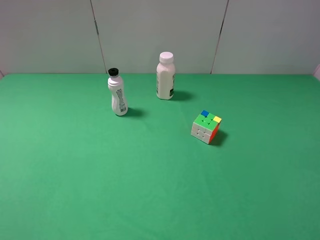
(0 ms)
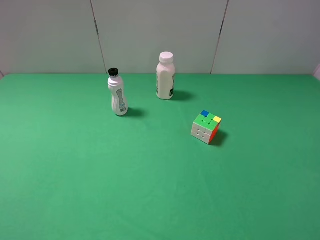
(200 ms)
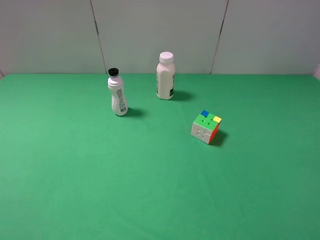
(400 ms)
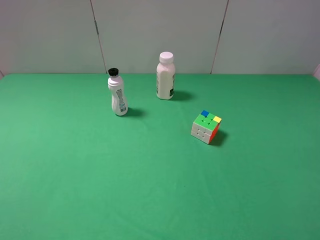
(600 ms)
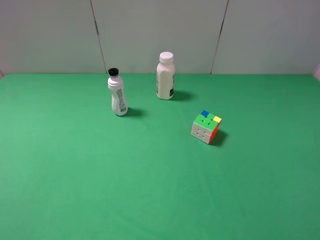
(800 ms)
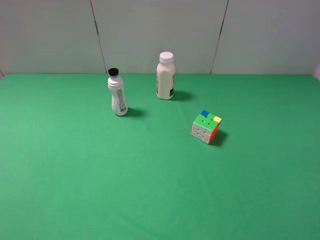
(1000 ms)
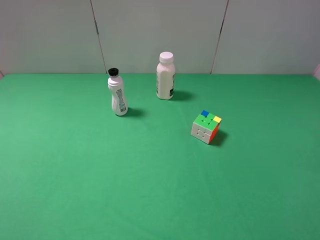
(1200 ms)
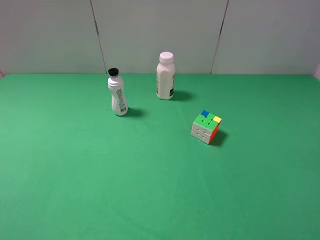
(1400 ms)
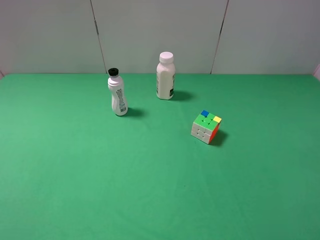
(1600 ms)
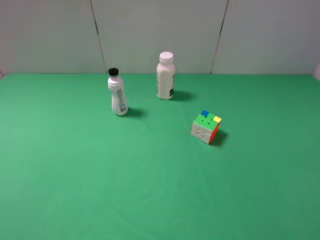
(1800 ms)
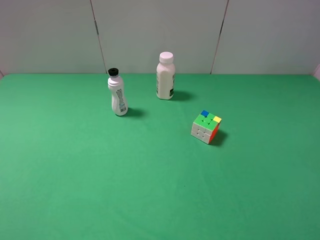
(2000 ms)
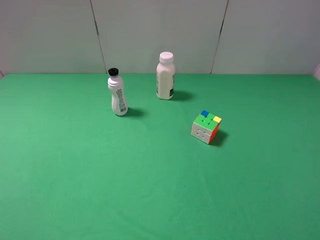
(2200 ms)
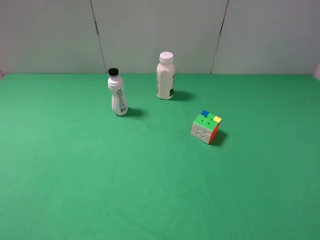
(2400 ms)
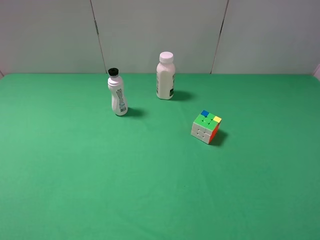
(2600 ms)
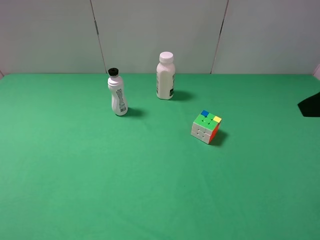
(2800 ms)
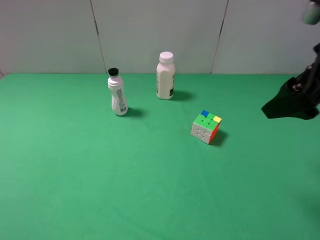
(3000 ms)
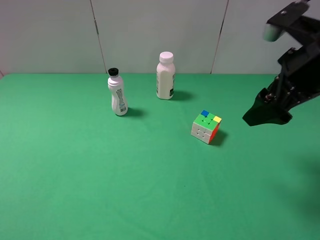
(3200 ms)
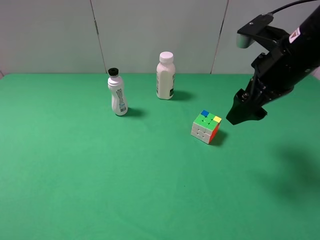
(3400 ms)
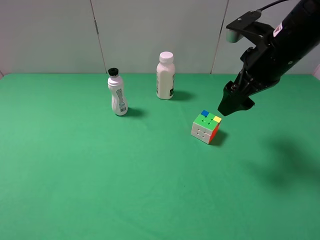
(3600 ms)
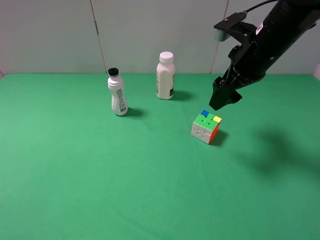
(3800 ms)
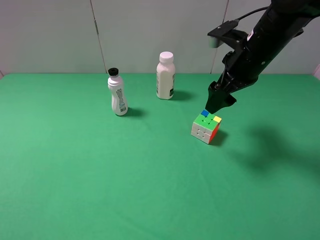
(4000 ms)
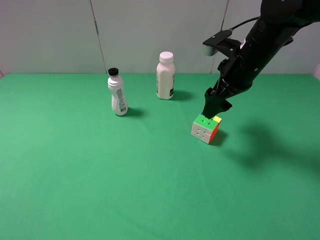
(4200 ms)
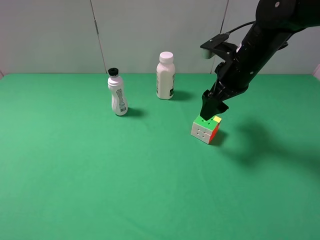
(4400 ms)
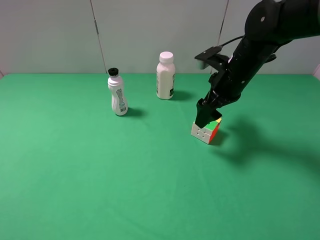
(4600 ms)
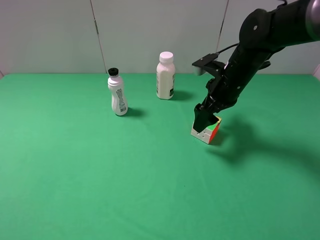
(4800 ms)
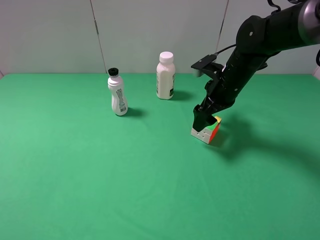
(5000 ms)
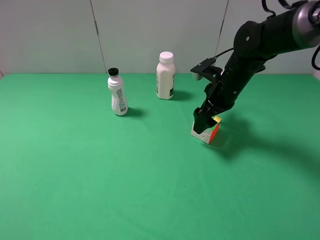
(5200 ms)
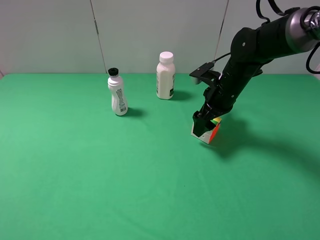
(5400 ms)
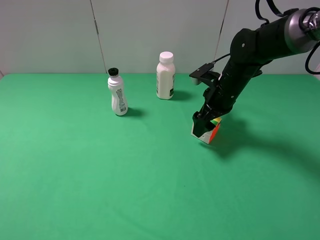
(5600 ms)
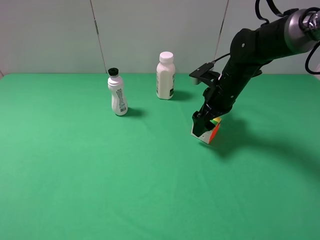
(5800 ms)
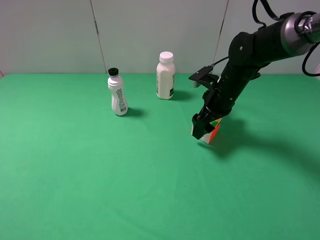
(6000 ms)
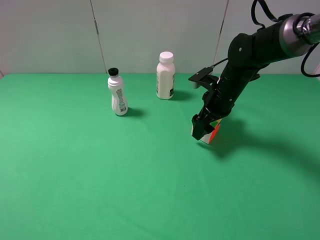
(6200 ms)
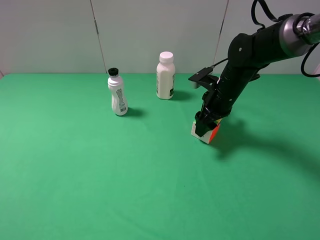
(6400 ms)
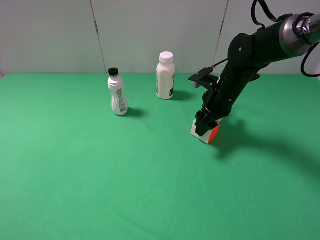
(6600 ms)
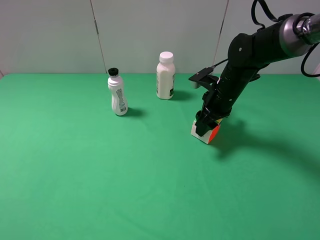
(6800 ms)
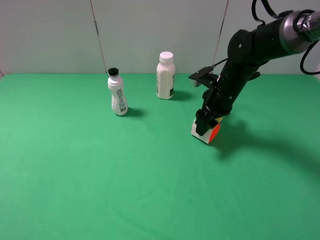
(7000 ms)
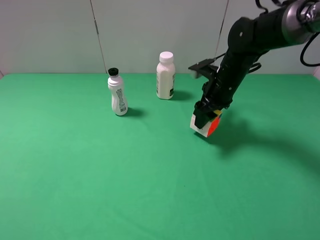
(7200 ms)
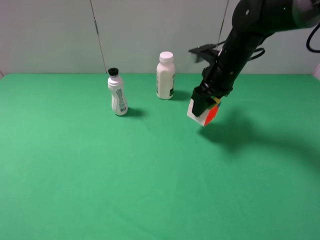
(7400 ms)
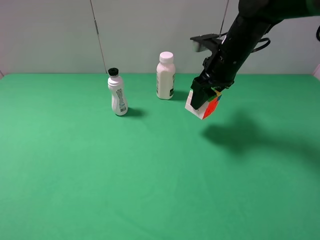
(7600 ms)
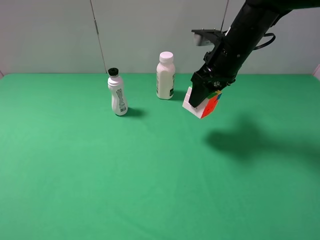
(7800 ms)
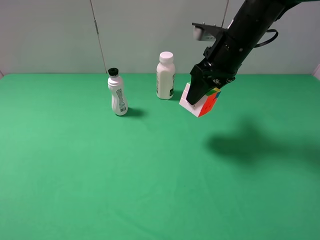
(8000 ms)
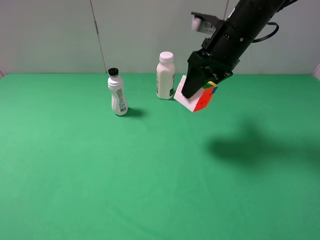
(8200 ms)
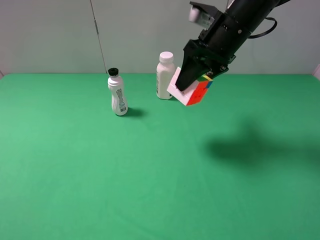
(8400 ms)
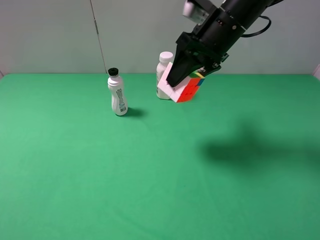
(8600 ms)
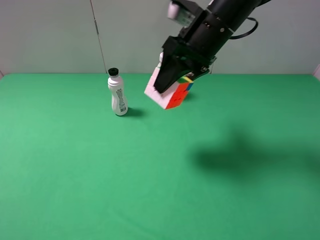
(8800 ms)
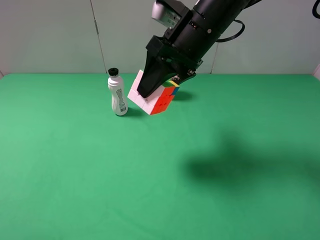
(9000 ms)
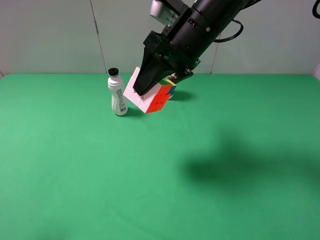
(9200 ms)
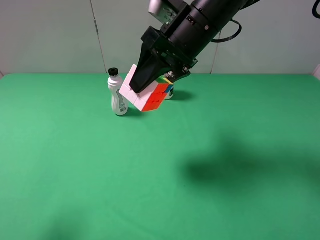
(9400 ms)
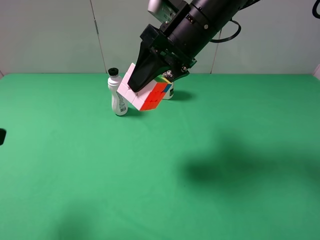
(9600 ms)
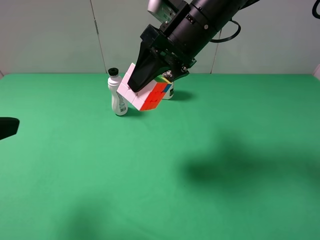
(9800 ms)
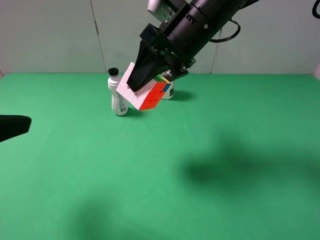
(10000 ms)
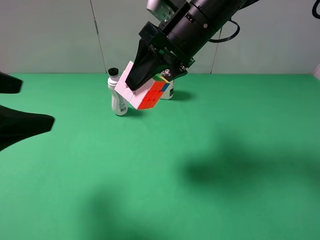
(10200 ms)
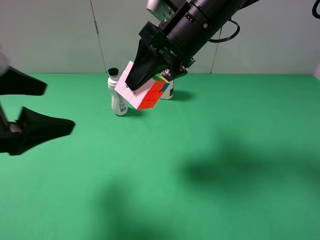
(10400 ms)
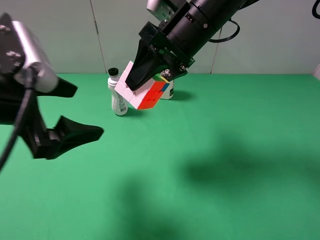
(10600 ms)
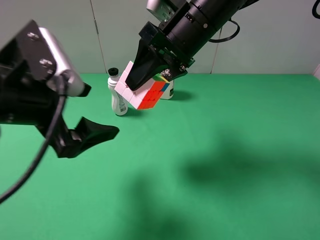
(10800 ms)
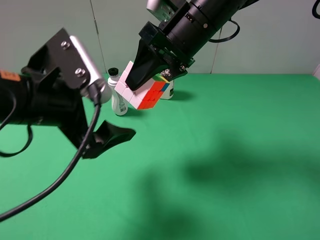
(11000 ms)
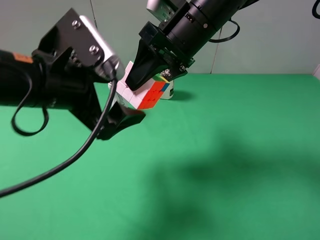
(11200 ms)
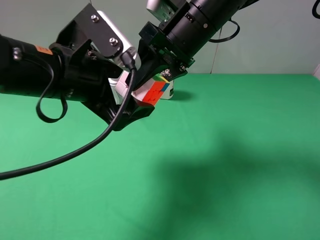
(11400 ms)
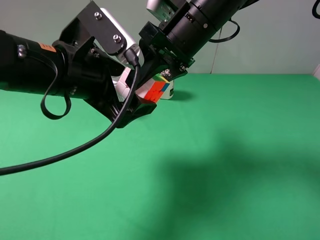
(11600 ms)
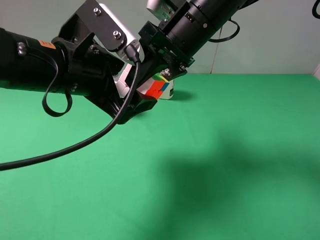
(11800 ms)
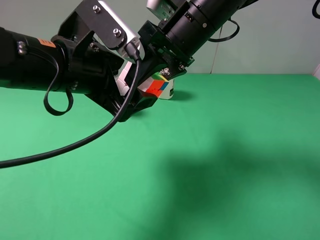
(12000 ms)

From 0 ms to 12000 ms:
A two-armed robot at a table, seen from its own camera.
Task of the whole recording: use the right gripper to pick up the item and transfer it from the right gripper to the left gripper.
Step, from 0 ms to 7200 ms: Use the right gripper to grab the Rubik's Cube on the right side of the table.
From 1600 ms to 3000 ms: The right gripper moves forward, about 20 cm.
From 3000 ms to 4400 ms: The right gripper goes approximately 20 cm forward, downward and to the left.
From 4400 ms to 6000 ms: The right gripper goes about 10 cm downward.
From 6000 ms to 7600 ms: The right gripper heads upward, covering about 10 cm, and closes up.
From 7600 ms to 9000 ms: The right gripper is displaced to the left, upward and backward by some 10 cm.
From 9000 ms to 10400 ms: The left gripper shifts approximately 15 cm forward and to the right.
From 10400 ms to 12000 ms: The left gripper heads to the right and forward, covering some 10 cm.

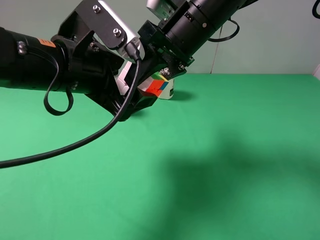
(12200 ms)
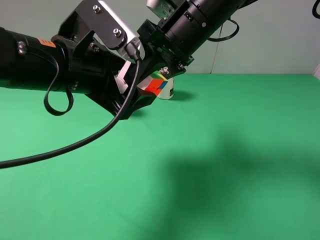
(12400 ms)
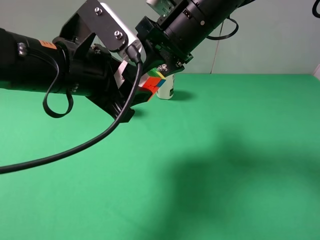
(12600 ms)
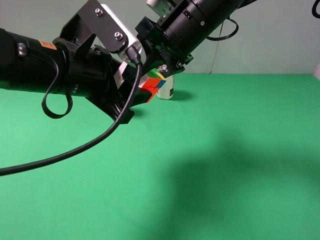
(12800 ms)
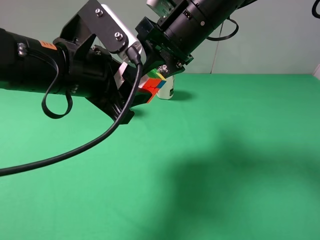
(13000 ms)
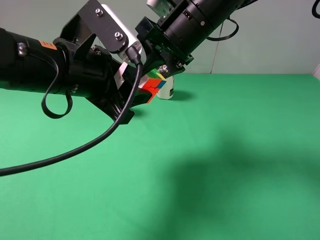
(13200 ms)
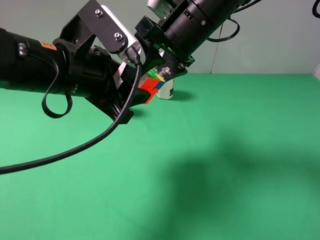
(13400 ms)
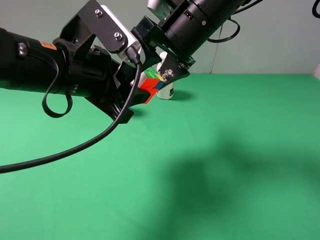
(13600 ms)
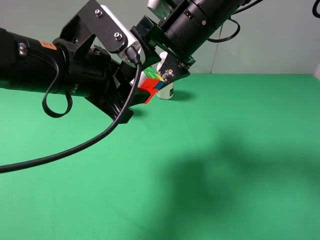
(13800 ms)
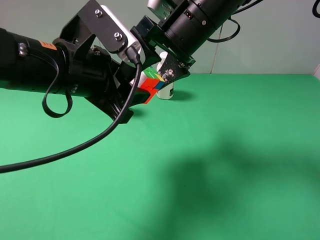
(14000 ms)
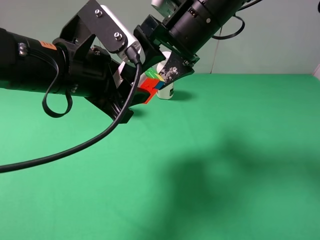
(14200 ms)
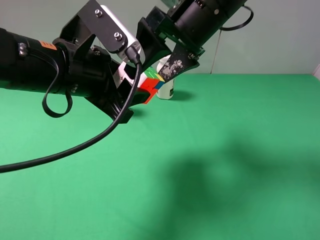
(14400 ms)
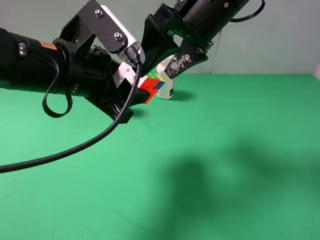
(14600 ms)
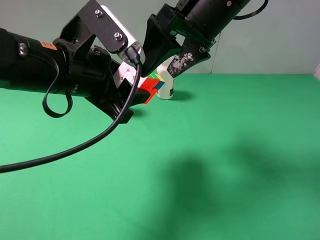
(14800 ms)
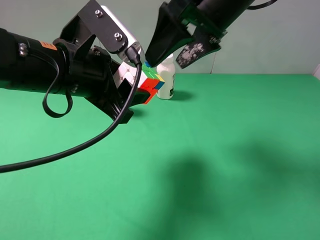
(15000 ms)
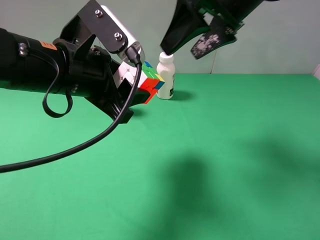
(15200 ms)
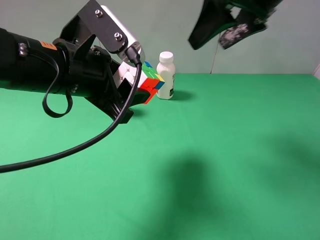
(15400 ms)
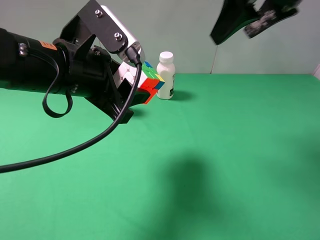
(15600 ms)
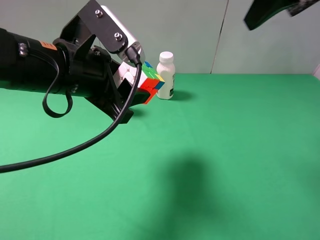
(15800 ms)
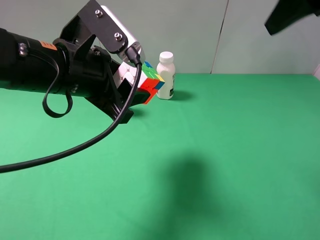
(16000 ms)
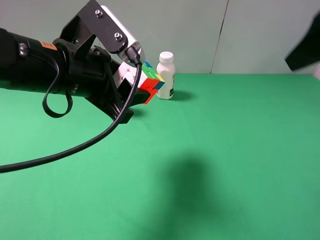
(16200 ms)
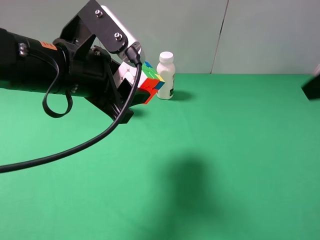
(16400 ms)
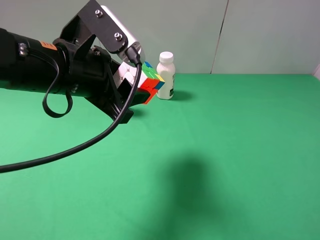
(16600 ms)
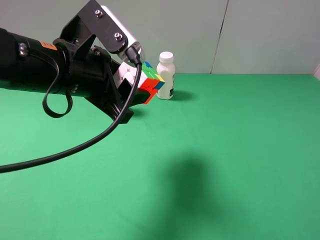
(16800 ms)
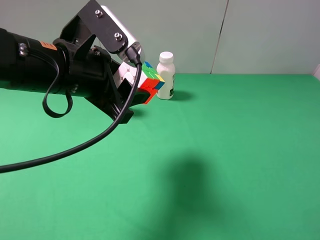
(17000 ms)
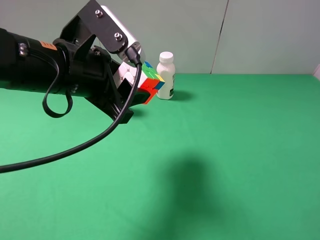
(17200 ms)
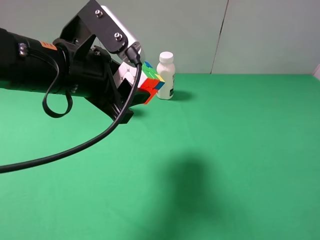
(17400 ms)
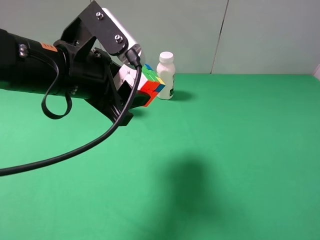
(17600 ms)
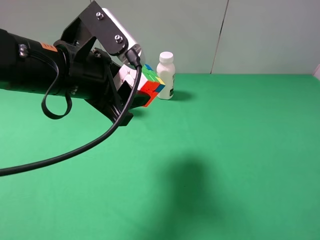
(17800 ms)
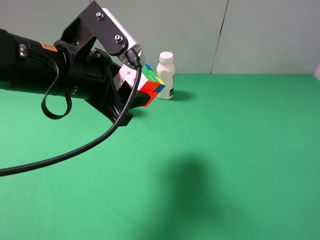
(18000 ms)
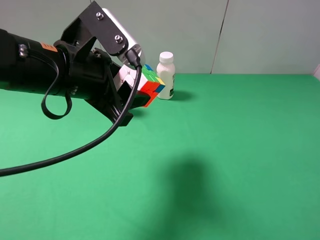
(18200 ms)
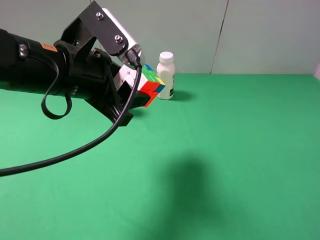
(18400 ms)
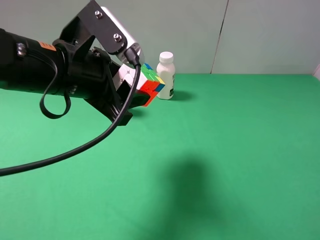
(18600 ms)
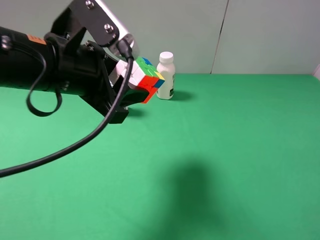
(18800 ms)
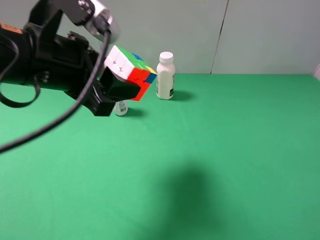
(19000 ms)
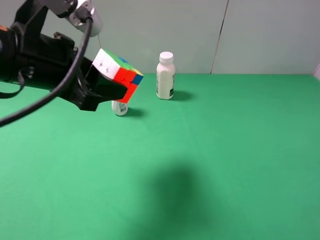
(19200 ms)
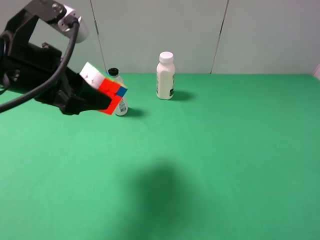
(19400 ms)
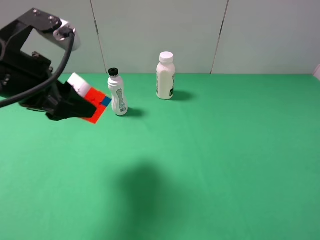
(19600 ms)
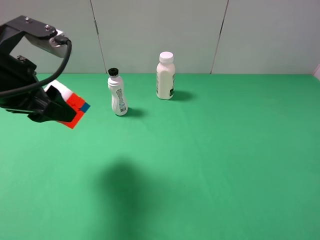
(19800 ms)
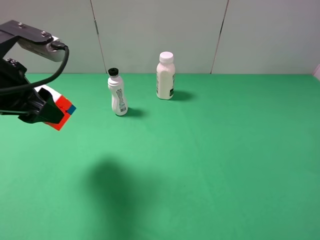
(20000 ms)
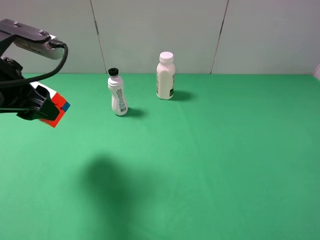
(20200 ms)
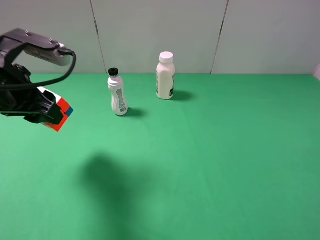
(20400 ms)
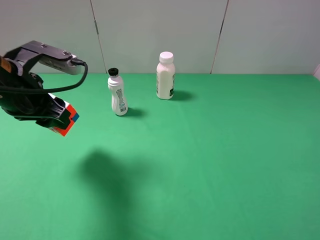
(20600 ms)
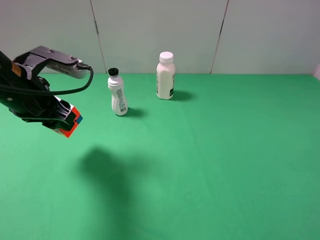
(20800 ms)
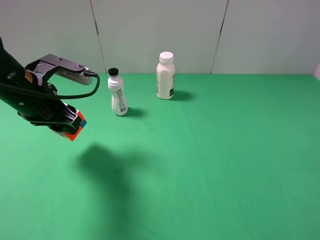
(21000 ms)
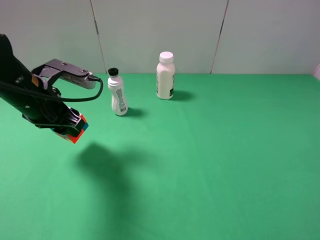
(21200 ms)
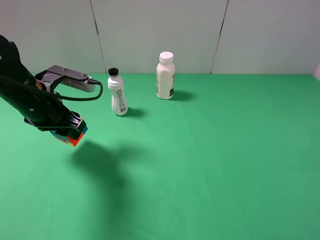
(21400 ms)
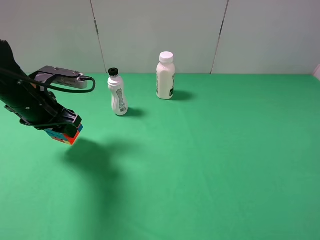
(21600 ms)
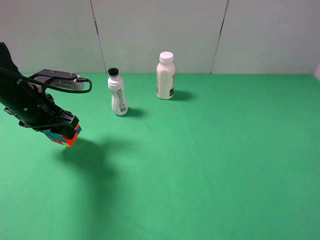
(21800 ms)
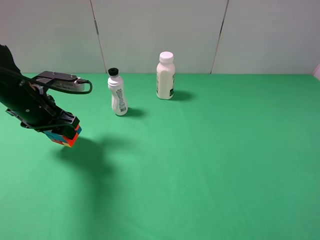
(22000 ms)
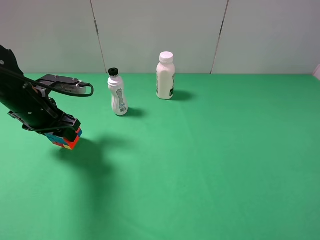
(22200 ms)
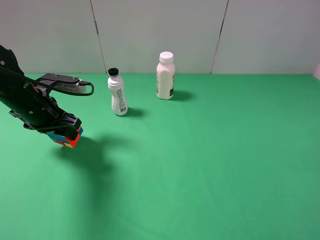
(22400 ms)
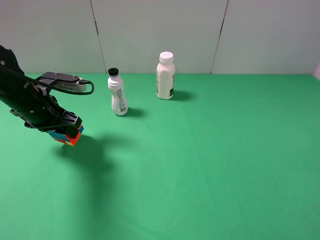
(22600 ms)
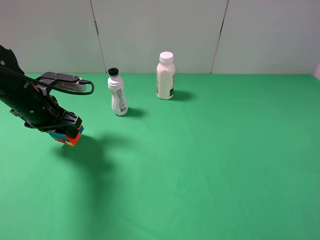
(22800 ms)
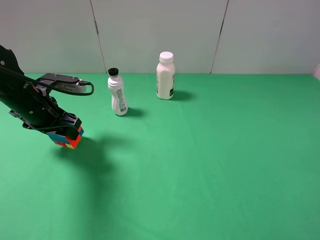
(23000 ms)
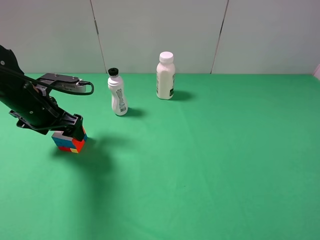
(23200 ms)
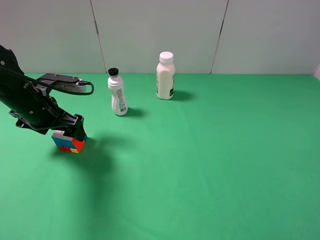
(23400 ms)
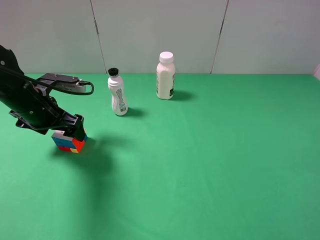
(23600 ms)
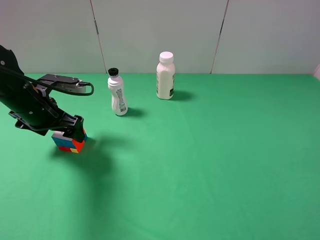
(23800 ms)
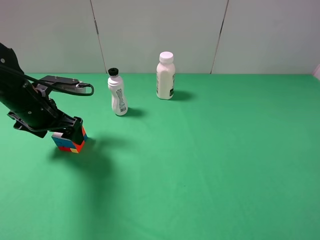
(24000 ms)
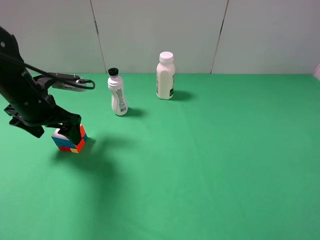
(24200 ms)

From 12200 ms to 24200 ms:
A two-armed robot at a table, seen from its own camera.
Task of the whole recording: use the right gripper to pick up the item and transfer it from the right gripper to the left gripper.
Step, from 14200 ms to 23400 ms: The left gripper places Rubik's Cube on the left side of the table.
From 12200 ms to 13800 ms: The right gripper opens its fingers; the left gripper closes up.
From 13800 ms to 15200 ms: The right gripper travels to the right and upward by roughly 10 cm.
From 15200 ms to 16600 ms: The right gripper heads backward and to the right, covering some 25 cm.
From 16600 ms to 18200 ms: The right gripper is displaced backward and downward by approximately 10 cm.
From 18200 ms to 19800 ms: The left gripper is displaced to the left by approximately 10 cm.
From 19800 ms to 21200 ms: The left gripper is displaced downward by approximately 10 cm.
From 21200 ms to 22600 ms: The left gripper ends up some 5 cm from where it was.
From 22600 ms to 24200 ms: The left gripper opens.
